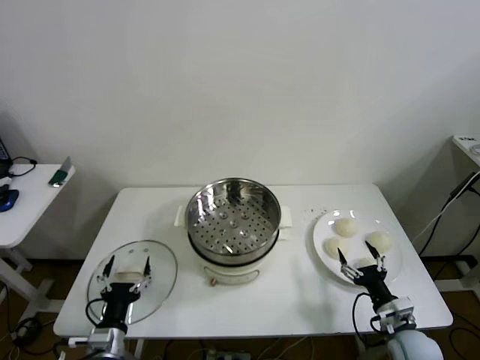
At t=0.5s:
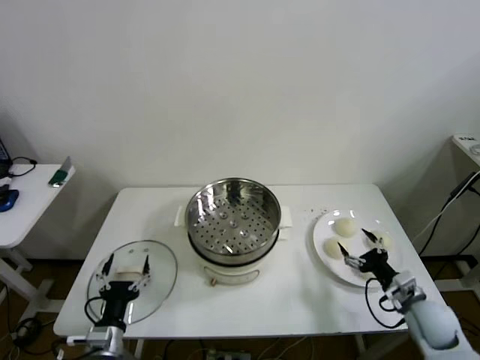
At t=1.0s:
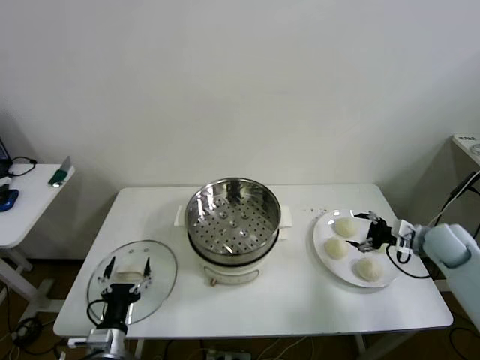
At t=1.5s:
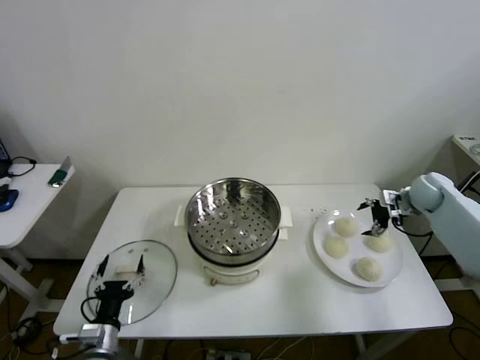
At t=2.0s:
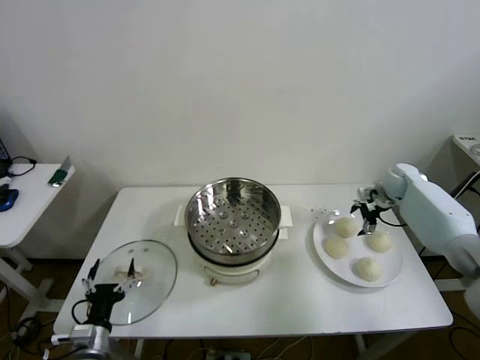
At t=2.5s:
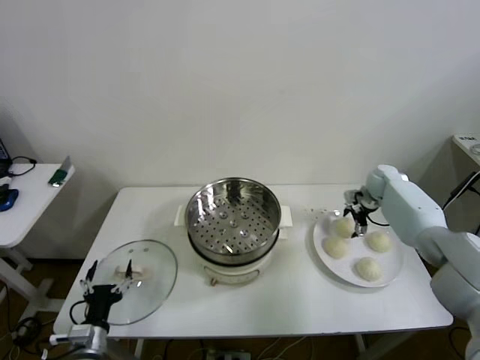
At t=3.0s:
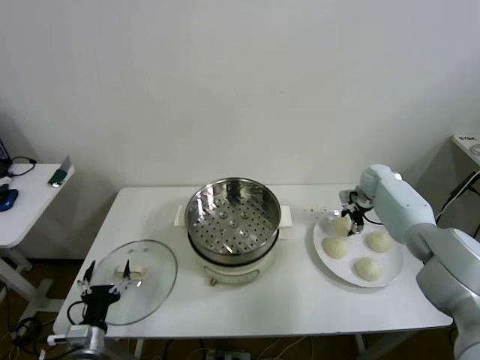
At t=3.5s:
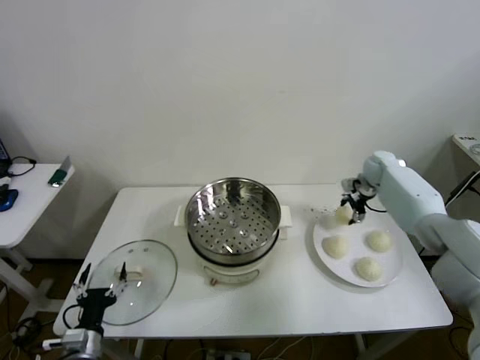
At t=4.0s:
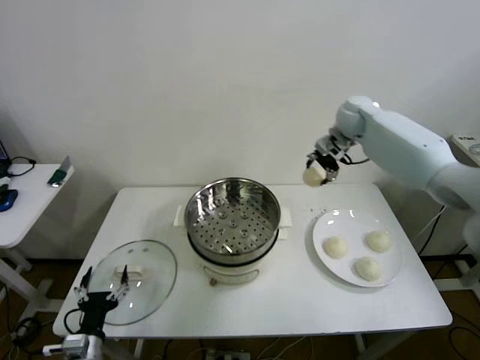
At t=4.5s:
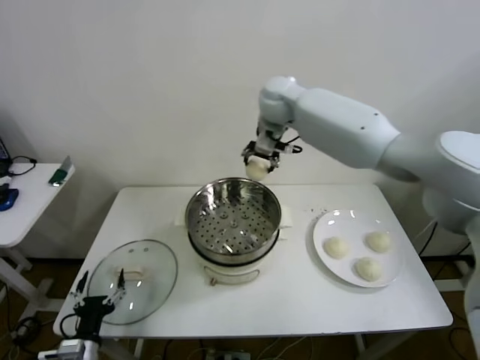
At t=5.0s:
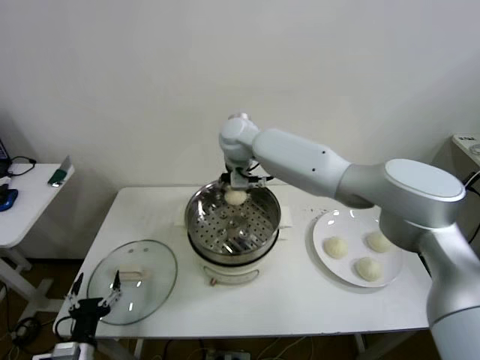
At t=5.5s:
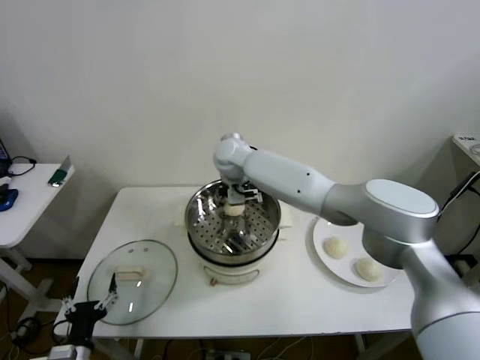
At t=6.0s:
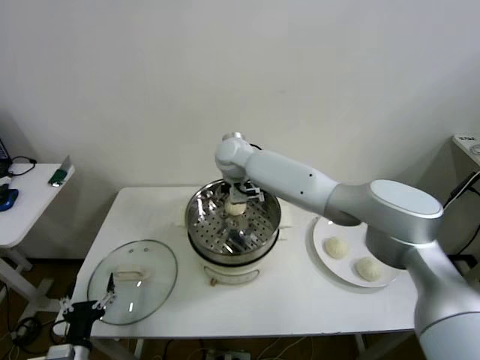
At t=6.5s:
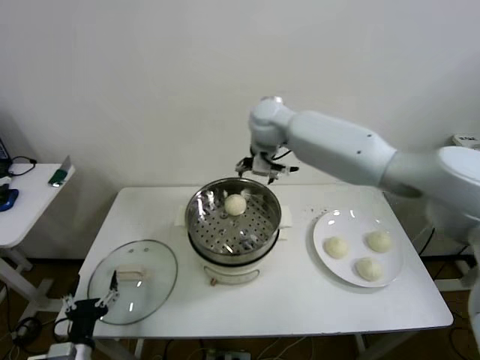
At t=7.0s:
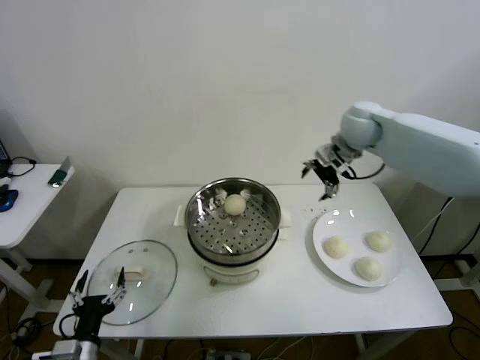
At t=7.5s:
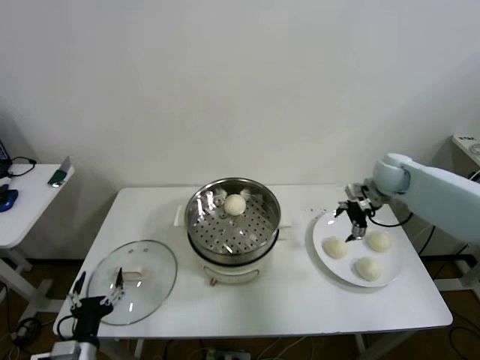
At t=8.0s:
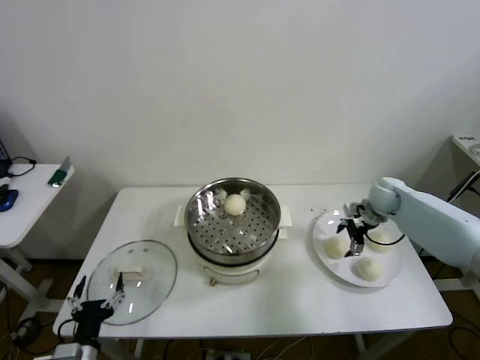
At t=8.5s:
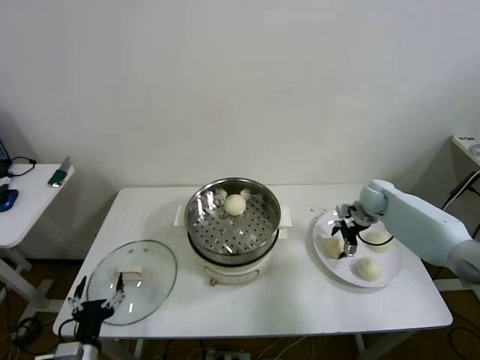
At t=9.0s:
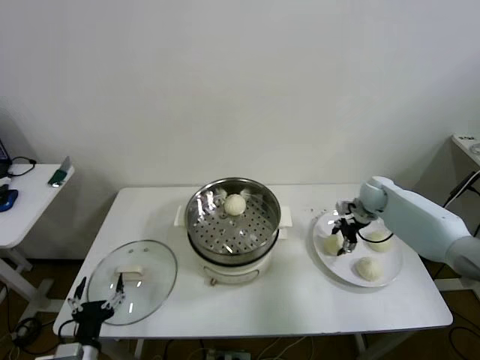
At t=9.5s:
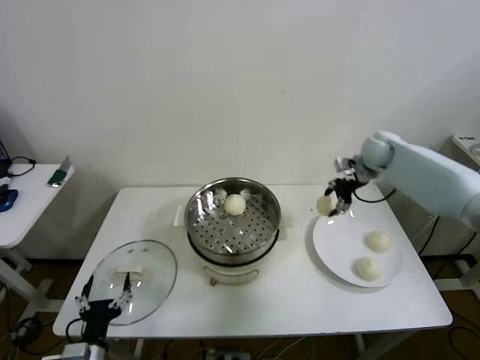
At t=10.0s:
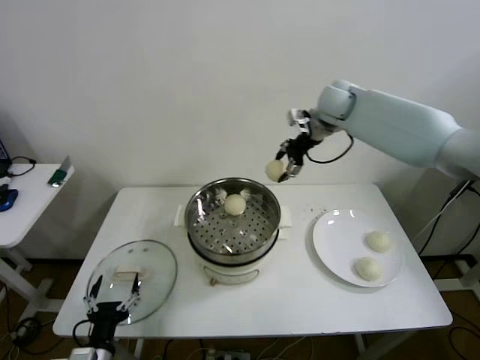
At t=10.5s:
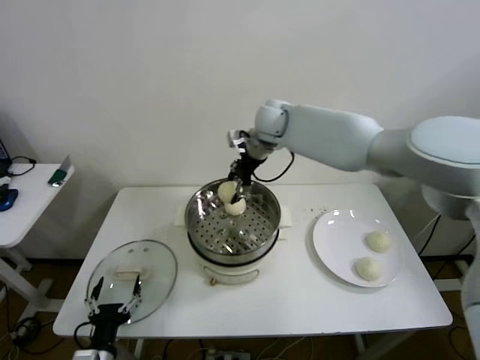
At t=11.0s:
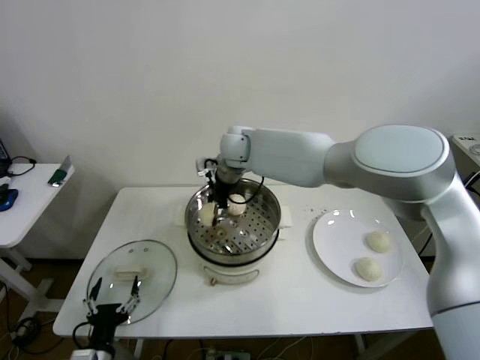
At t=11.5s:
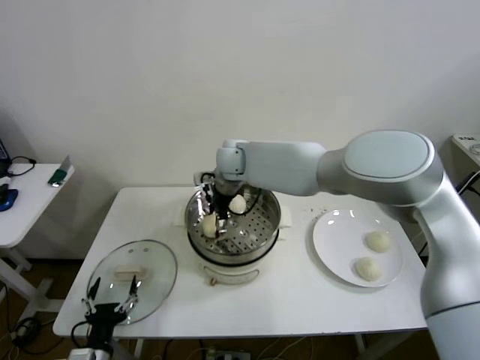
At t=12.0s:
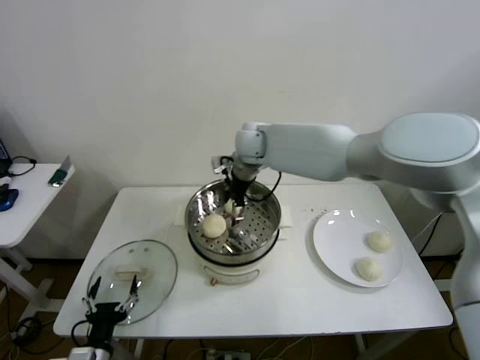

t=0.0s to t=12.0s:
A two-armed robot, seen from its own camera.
Step, t=0.0s to t=2.5s: Grasp the baozi in the plate with right gripper.
Step, t=3.5s to t=6.0s: Place the baozi on the steamer with right gripper.
Step, t=6.5s to t=8.5s: Grasp the baozi in the plate with right gripper.
Step, t=9.0s to t=11.5s: Place the baozi on the steamer with right gripper.
t=2.0s to t=4.0s: The right gripper heads upward and to the left, covering approximately 30 cm, and closes.
t=4.0s to t=6.0s: The right gripper travels to the left by approximately 25 cm, and opens.
t=6.0s to t=8.0s: The right gripper moves to the right, roughly 40 cm.
t=8.0s to t=10.0s: The right gripper travels upward and to the left by approximately 30 cm, and closes.
t=10.0s to t=12.0s: The right gripper is displaced to the left and downward by about 15 cm, and opens.

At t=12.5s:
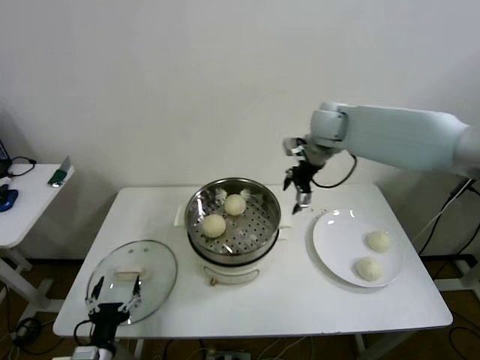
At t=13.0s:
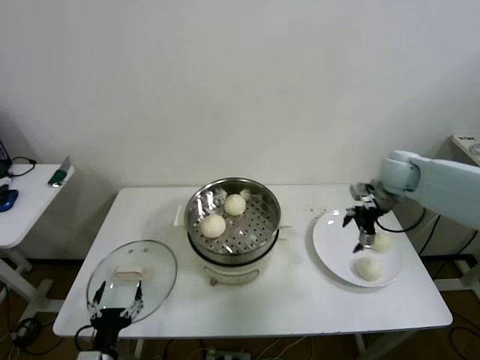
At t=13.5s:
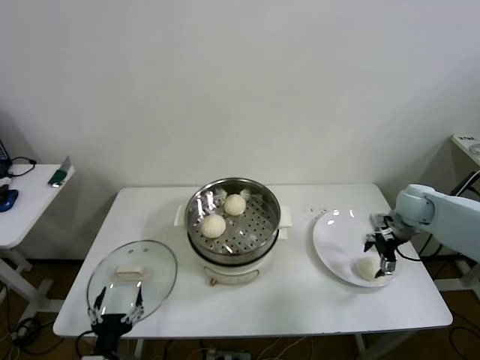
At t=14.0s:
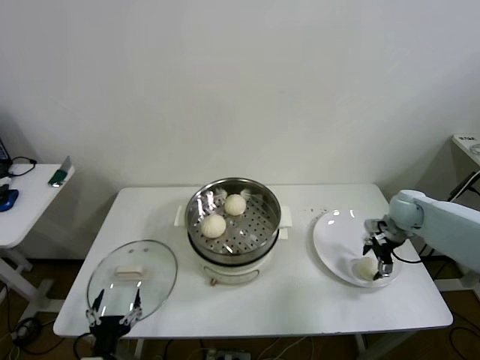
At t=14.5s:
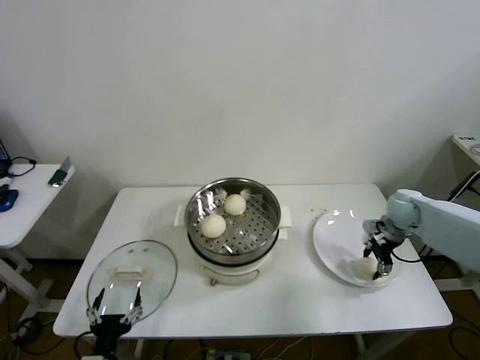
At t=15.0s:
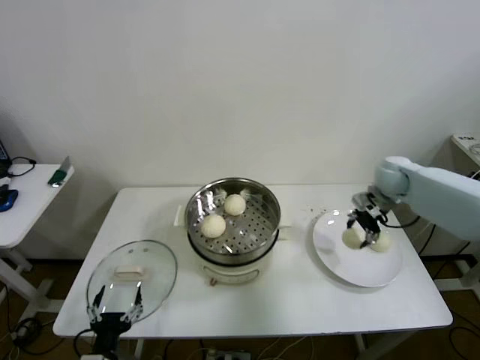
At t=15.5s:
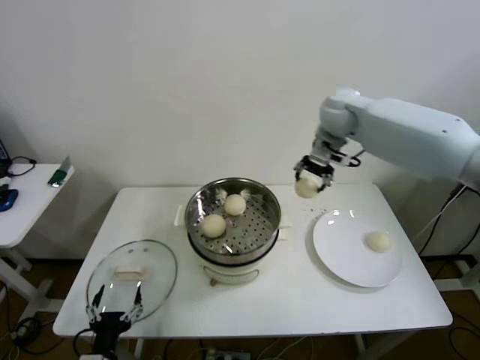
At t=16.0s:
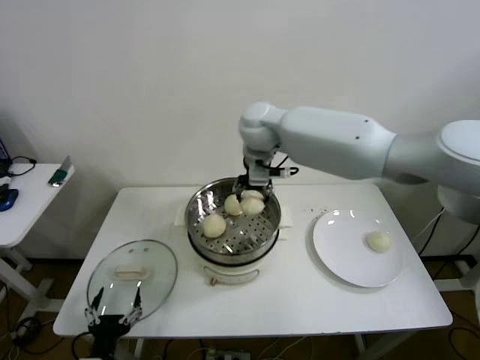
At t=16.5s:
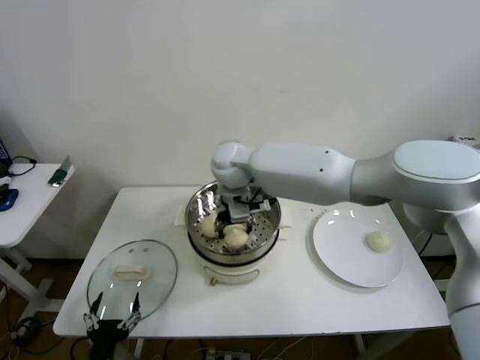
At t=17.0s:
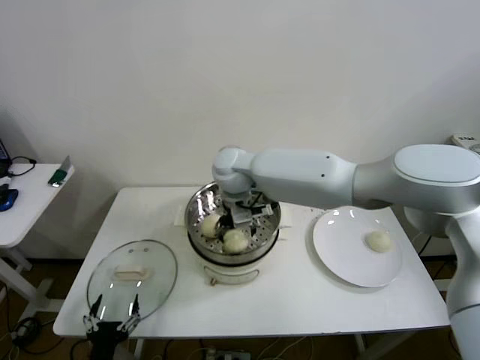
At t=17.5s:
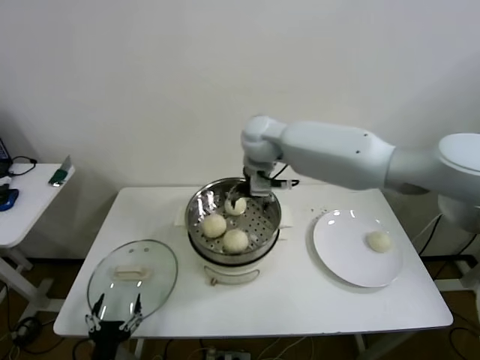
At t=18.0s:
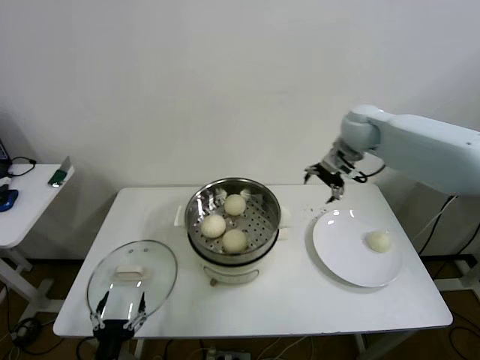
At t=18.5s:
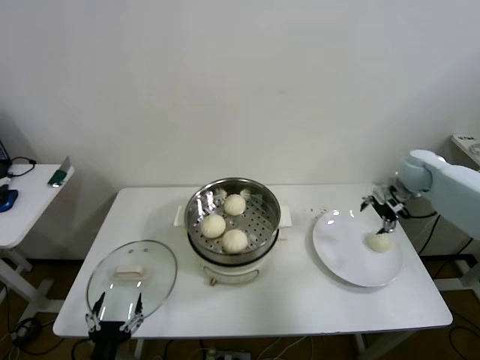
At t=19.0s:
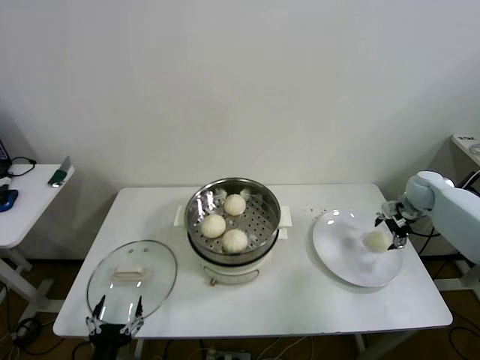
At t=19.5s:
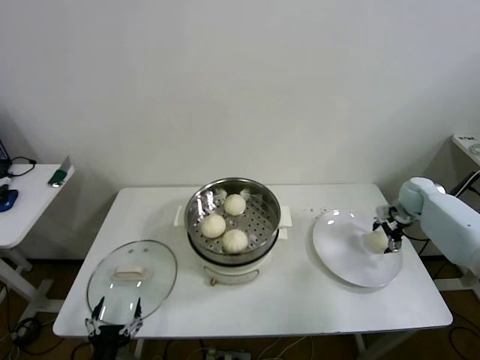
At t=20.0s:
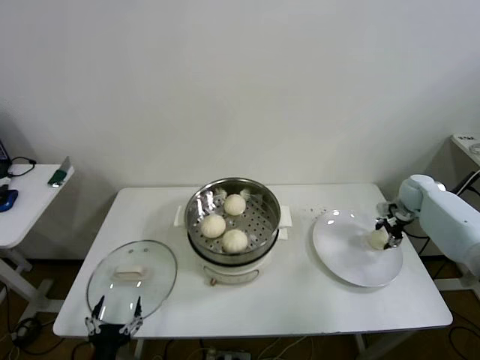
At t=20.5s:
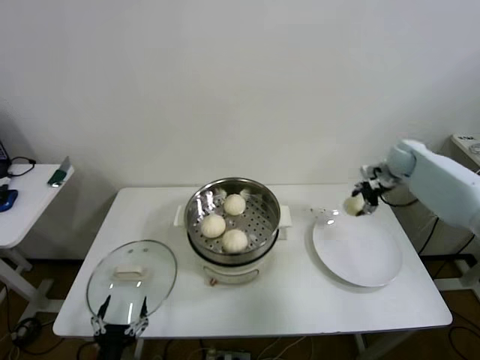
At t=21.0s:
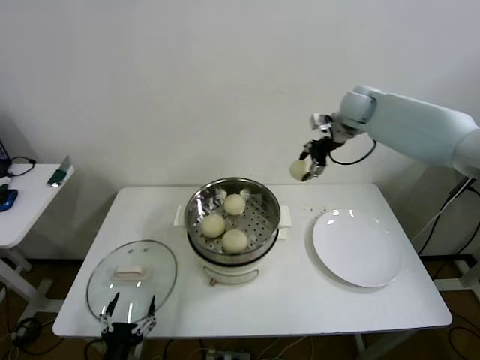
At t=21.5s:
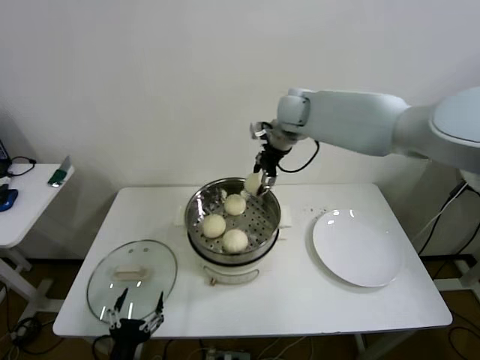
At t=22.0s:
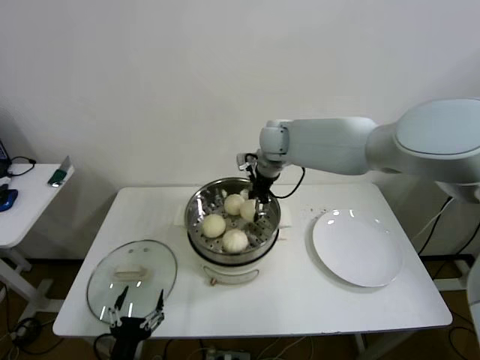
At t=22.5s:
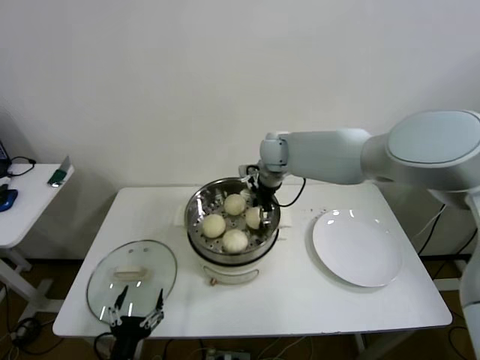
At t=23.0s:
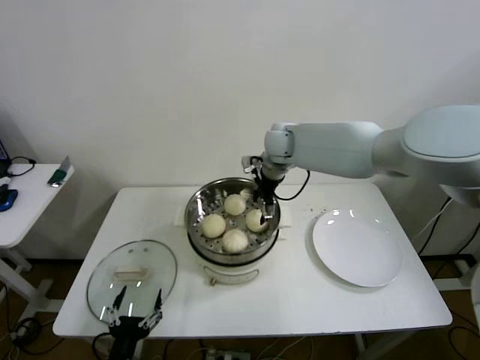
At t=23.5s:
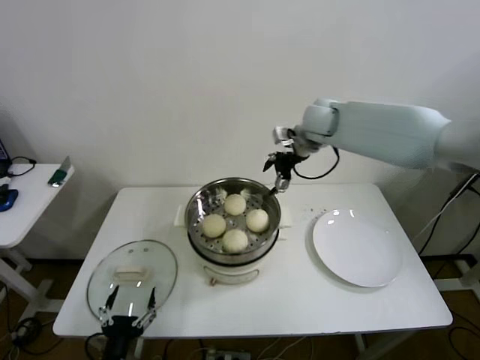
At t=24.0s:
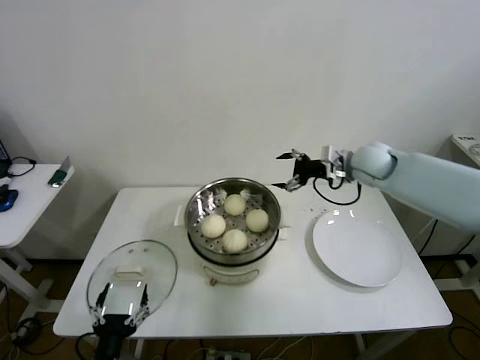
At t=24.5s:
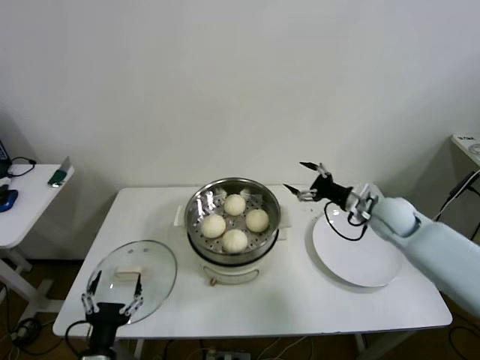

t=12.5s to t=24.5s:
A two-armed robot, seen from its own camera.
Step, t=12.5s to t=14.0s: Grasp the baozi in the plate with right gripper.
Step, t=14.5s to t=17.0s: Place the baozi on the steamer with right gripper.
Step, t=17.5s to t=19.5s: Grasp the baozi in the plate with right gripper.
Step, t=20.0s to t=22.5s: Place the baozi on the steamer with right gripper.
t=12.5s to t=14.5s: The right gripper heads downward and to the right, covering about 30 cm, and closes up.
t=14.5s to t=16.5s: The right gripper shifts approximately 40 cm to the left.
t=16.5s to t=18.5s: The right gripper travels to the right by some 50 cm, and opens.
t=18.5s to t=20.5s: The right gripper travels forward by about 5 cm, reaches roughly 10 cm downward, then returns, and closes.
t=20.5s to t=22.5s: The right gripper is displaced to the left by approximately 35 cm, and opens.
t=22.5s to t=24.5s: The right gripper goes some 30 cm to the right, backward and downward, and opens.

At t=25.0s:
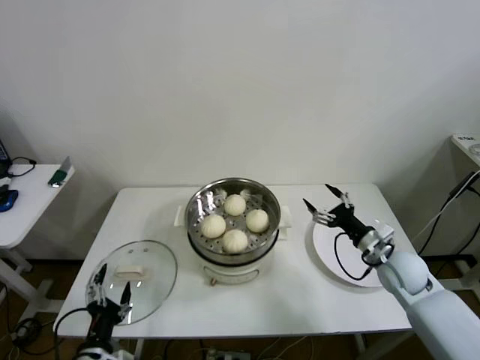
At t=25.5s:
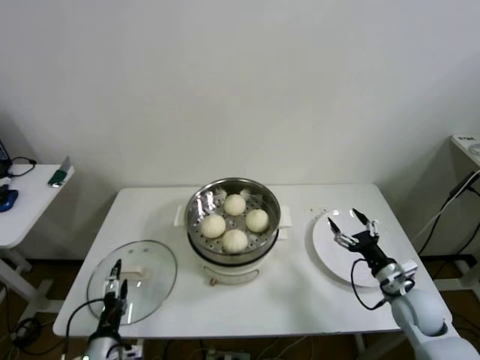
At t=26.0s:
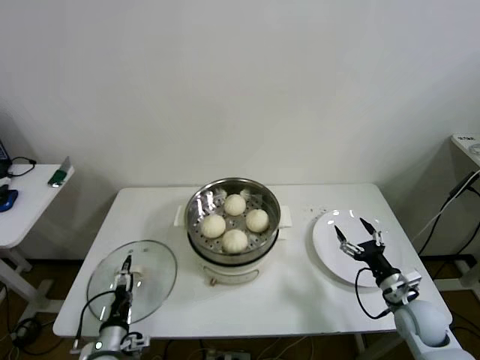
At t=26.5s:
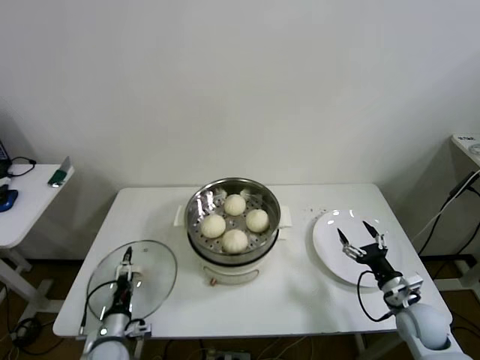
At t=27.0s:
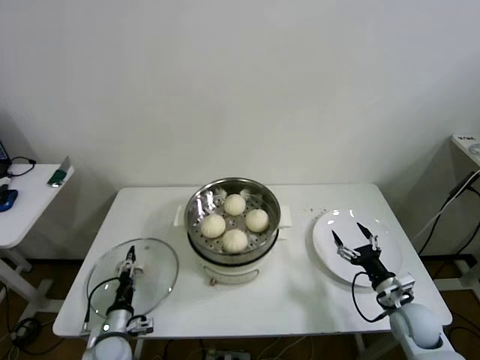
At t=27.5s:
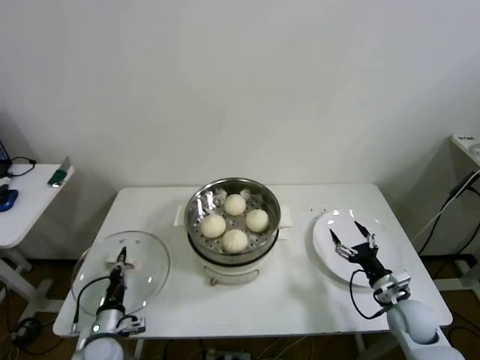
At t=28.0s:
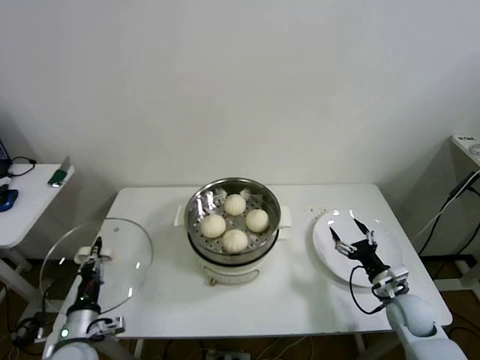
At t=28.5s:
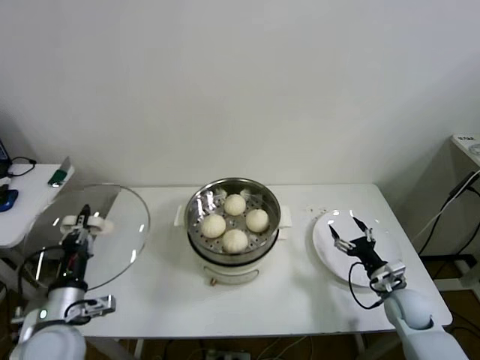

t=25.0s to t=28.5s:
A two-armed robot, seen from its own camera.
Step, t=25.0s to t=27.0s: Grasp the pot lid with left gripper.
t=25.0s to t=27.0s: The left gripper goes roughly 15 cm downward and forward, and closes up. The right gripper heads downward and backward, covering roughly 15 cm.
t=27.0s to t=28.5s: The left gripper shifts about 20 cm upward, and closes.
